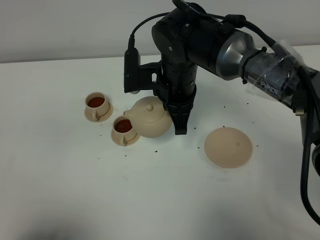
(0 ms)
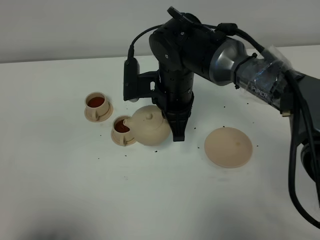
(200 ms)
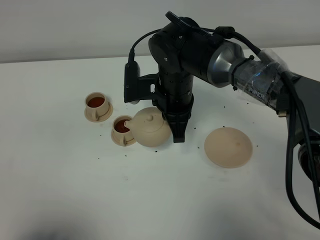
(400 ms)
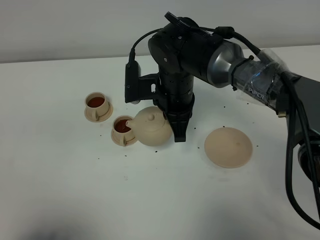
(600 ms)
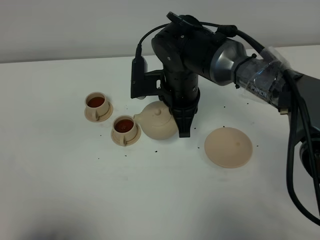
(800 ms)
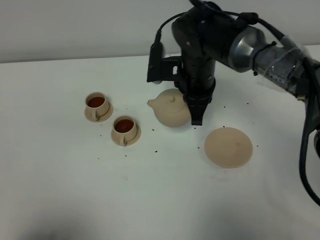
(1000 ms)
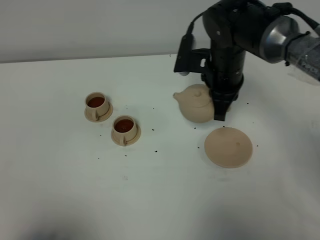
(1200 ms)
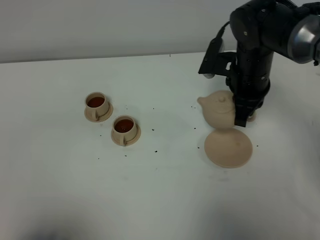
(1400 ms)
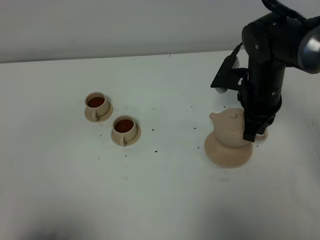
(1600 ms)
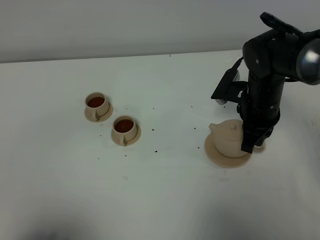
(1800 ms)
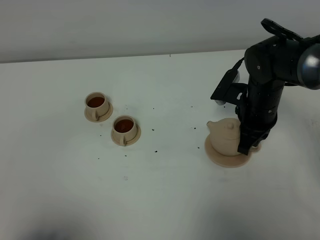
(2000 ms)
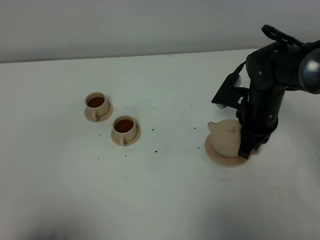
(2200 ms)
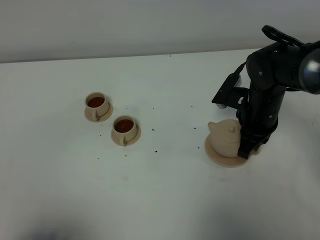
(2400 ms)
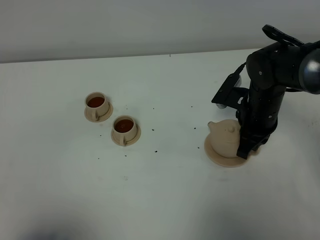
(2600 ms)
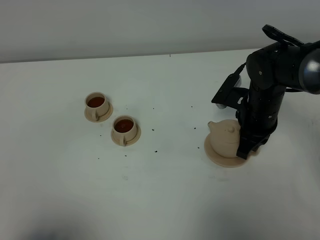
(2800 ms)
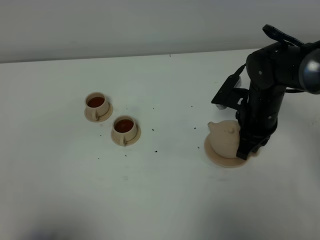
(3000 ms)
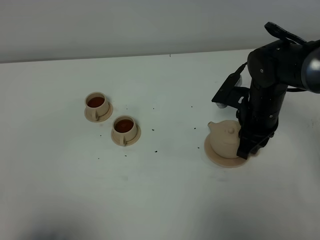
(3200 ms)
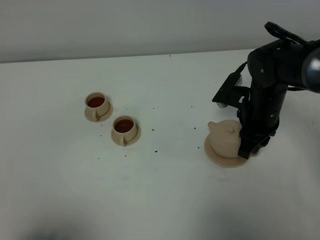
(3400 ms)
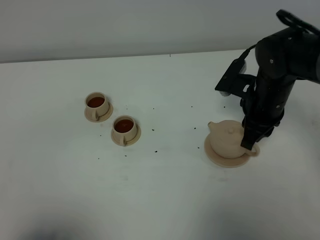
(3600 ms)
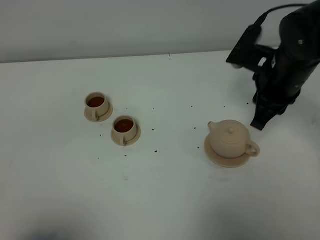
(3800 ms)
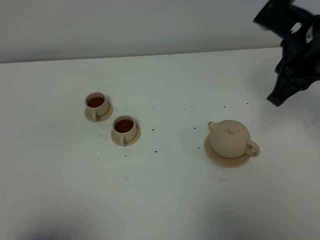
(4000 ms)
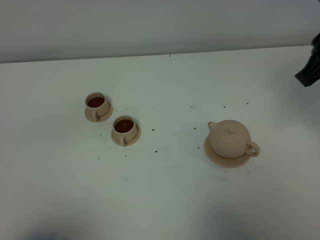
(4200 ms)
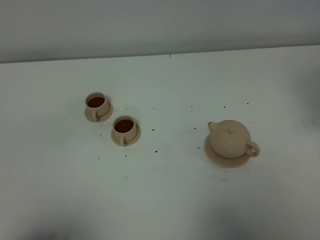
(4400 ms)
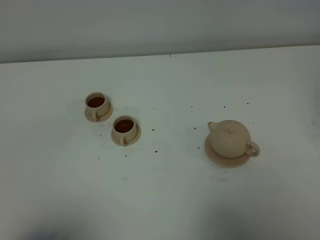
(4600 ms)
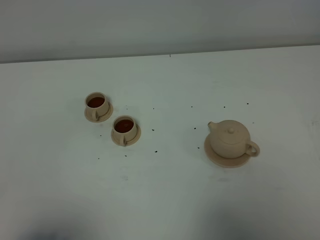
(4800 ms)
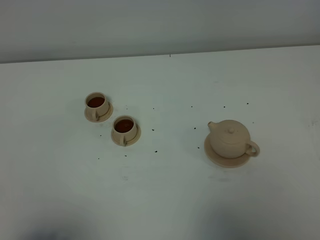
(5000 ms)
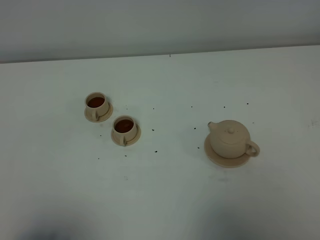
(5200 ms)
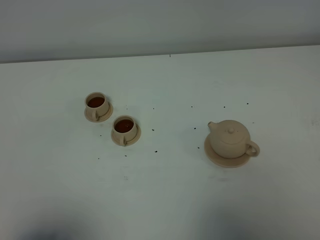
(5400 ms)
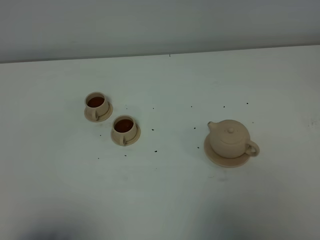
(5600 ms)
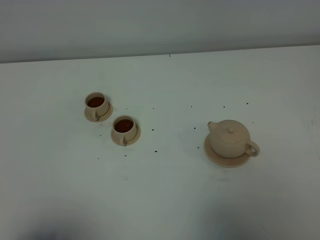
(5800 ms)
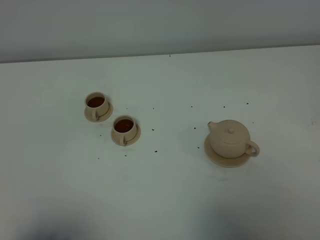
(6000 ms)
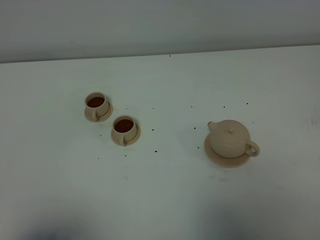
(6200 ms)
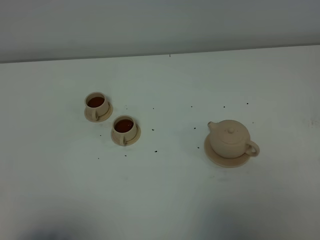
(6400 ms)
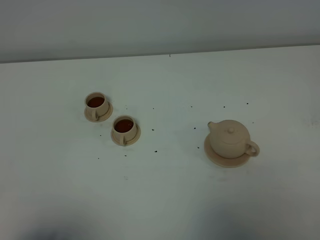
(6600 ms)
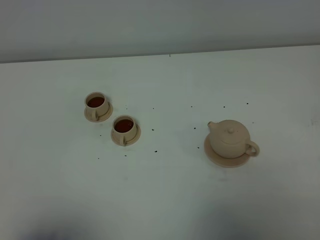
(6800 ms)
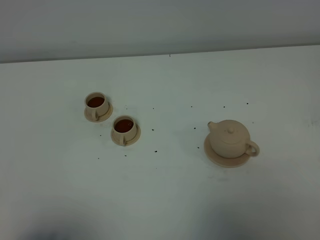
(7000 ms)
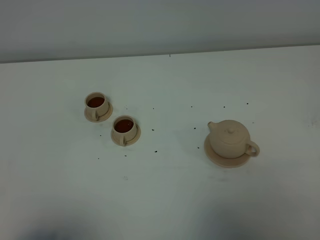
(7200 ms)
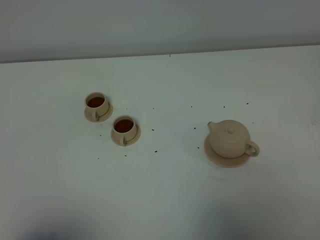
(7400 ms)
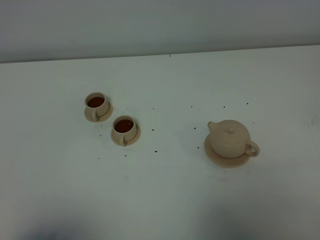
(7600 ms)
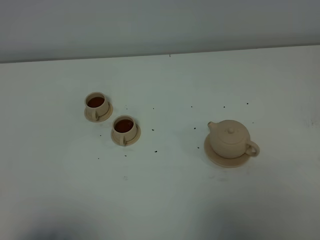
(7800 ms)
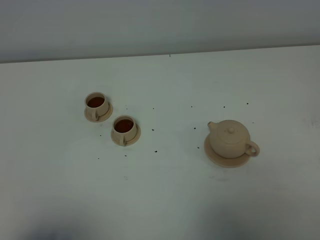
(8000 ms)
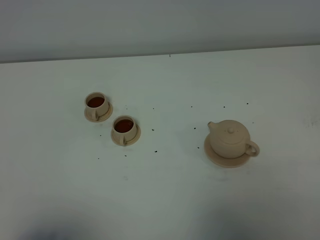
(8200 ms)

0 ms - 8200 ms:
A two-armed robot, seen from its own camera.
Task of the whole recording: grasp the brown teapot and pour the tea into the two brown teacups one by one, put the brown teapot back in its original place.
0 ms - 1600 ms: The right gripper is displaced to the right by roughly 15 cm.
1600 ms - 3200 ms: The right gripper opens.
3200 ms - 5000 ms: The right gripper shifts some 40 cm backward, upward and to the right.
6600 ms - 8200 ms: The two grippers keep their place.

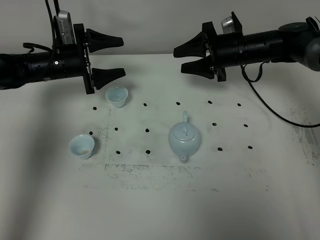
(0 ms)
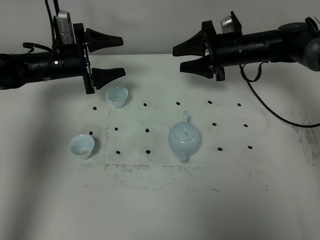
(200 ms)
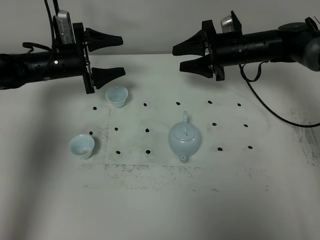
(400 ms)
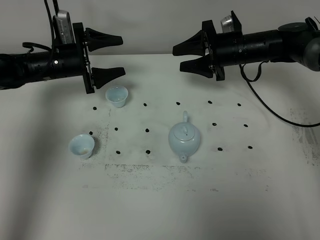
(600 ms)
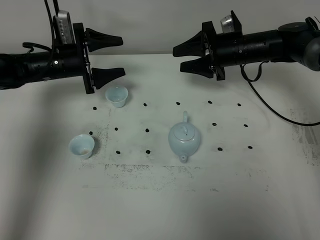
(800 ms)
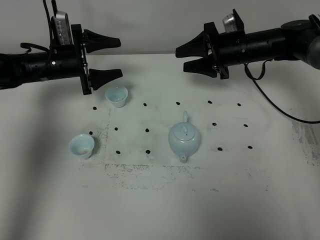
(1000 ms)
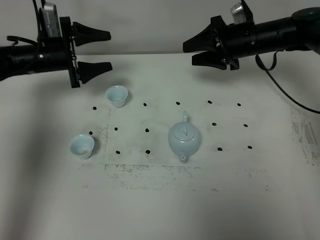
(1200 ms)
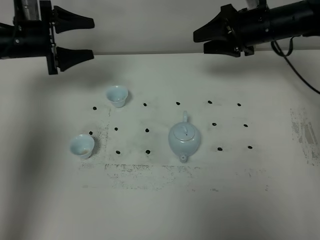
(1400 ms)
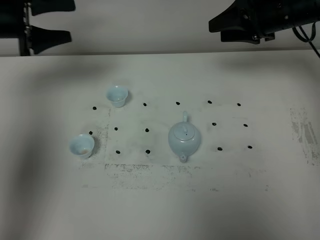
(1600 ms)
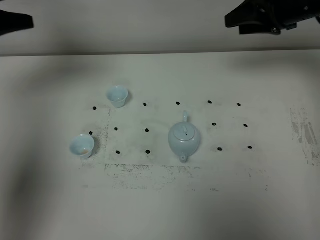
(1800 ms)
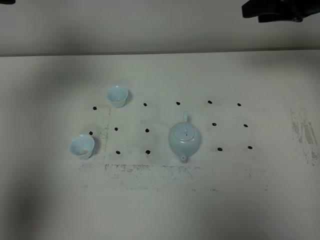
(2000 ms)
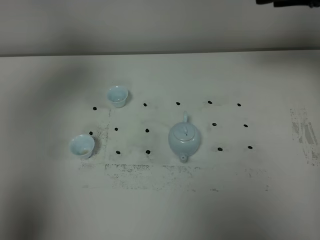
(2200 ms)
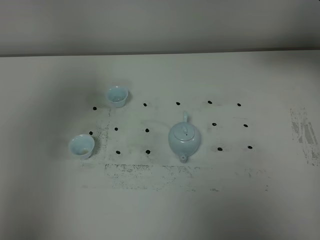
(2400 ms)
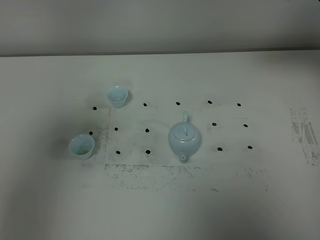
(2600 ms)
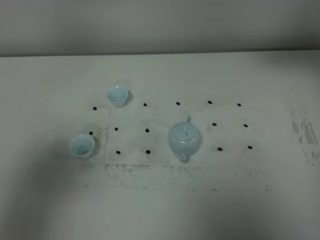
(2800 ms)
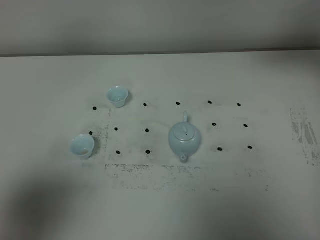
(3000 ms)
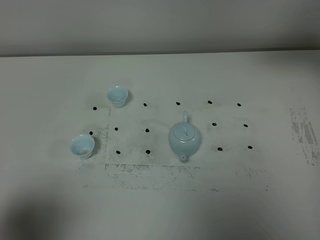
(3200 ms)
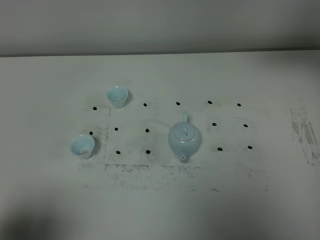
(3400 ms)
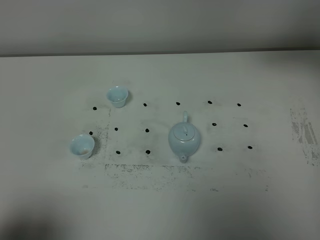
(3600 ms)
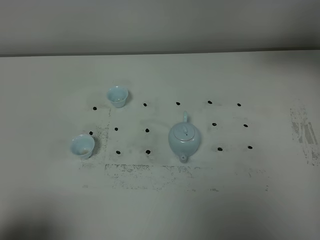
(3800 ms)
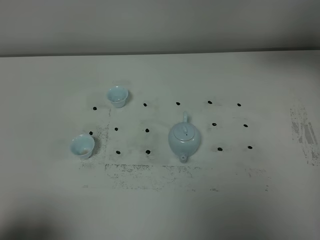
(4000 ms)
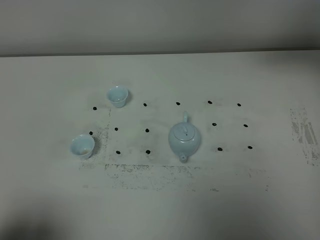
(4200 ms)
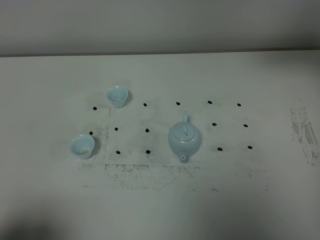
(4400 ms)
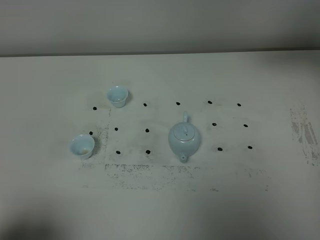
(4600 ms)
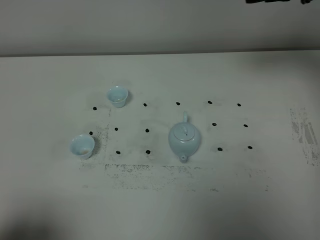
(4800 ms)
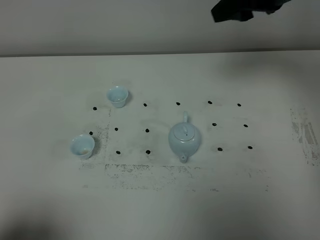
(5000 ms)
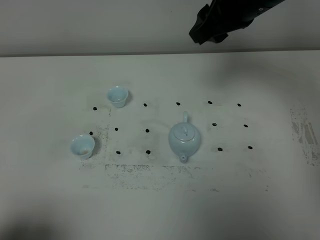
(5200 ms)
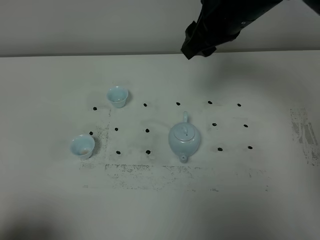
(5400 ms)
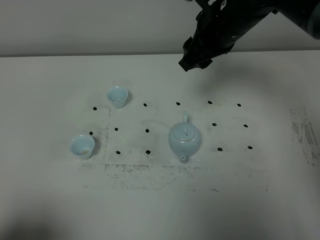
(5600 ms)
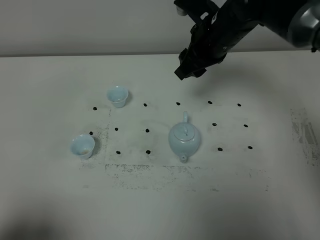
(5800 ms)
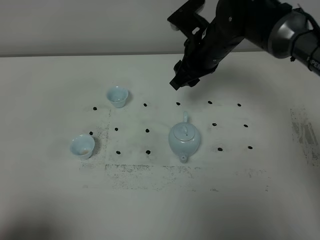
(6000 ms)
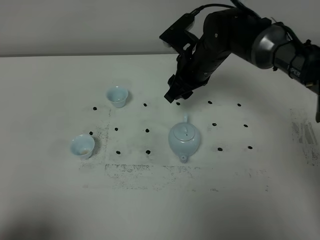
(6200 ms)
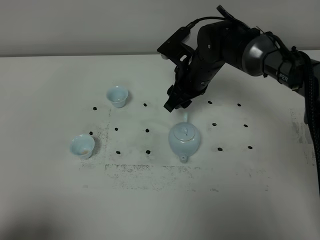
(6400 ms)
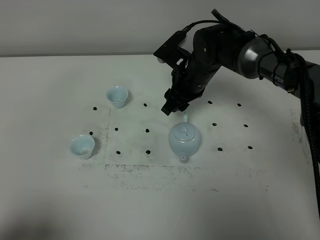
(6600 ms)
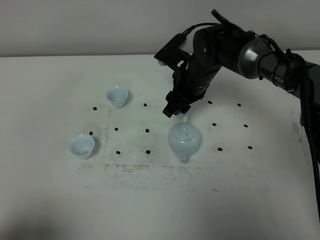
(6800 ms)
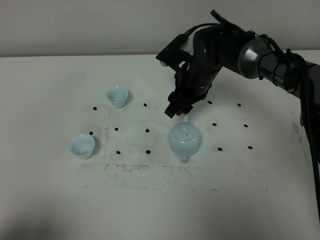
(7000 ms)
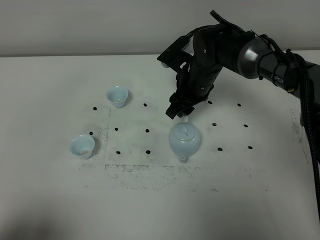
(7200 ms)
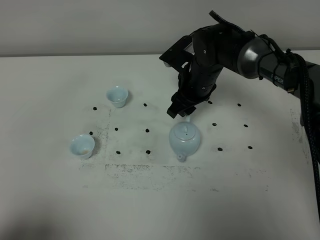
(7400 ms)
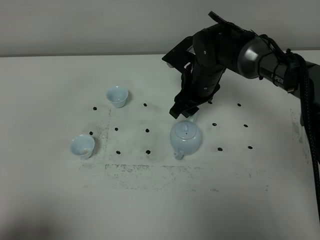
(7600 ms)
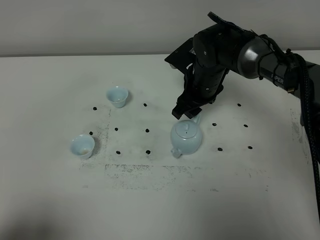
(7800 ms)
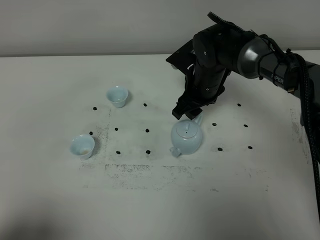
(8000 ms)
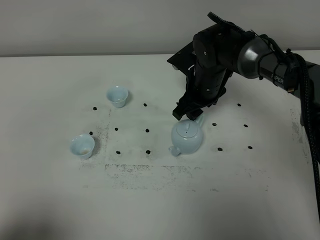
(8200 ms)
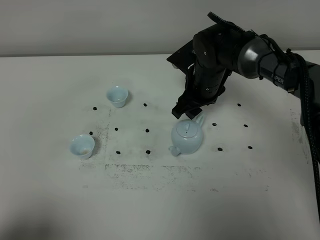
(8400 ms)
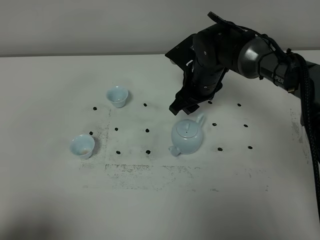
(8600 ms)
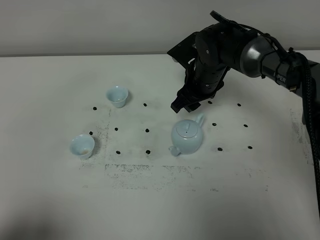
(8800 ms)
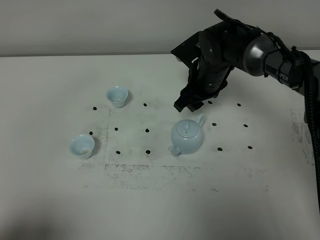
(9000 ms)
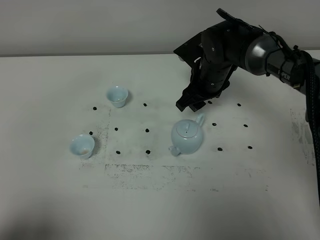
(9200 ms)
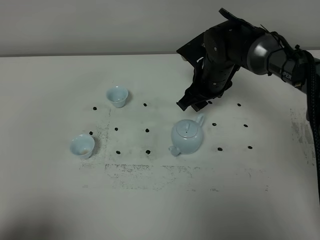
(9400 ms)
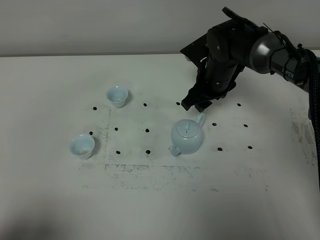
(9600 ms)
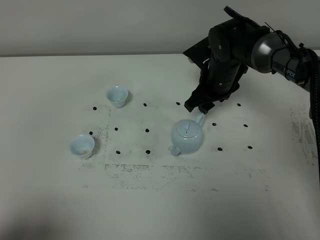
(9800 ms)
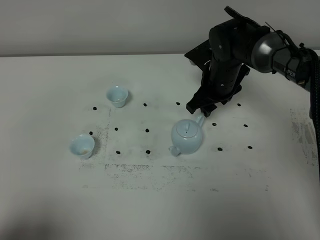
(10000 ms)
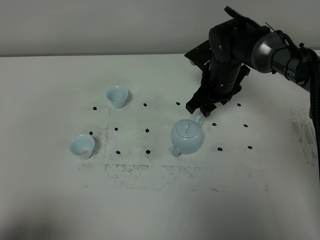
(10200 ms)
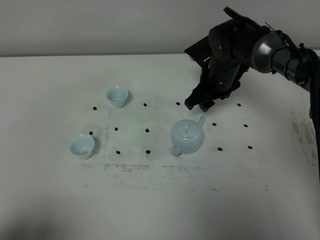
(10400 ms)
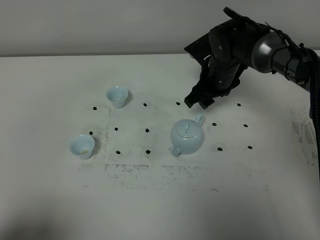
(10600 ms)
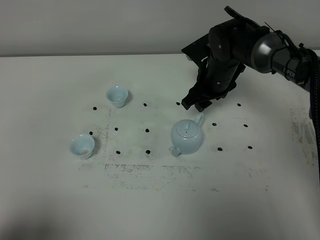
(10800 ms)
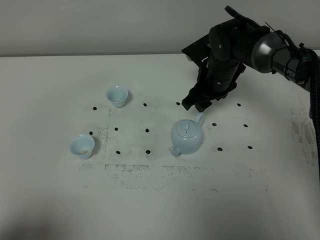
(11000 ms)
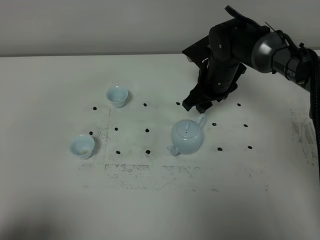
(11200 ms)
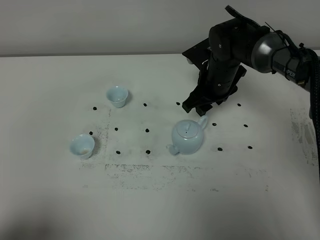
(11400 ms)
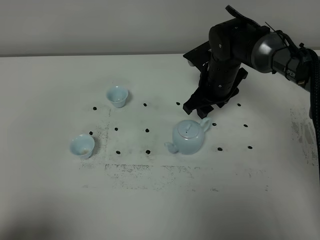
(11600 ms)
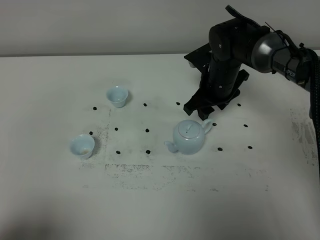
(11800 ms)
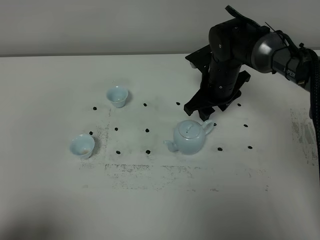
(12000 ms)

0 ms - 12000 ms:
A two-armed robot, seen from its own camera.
Task of the whole recording: grasp the blue porcelain teapot and pour the tea into the two blue porcelain teacups one by one, put the blue porcelain teapot back in its original place.
0 ms - 1600 ms: The left gripper travels upward and to the left by about 20 cm; the right gripper travels upward and to the right by roughly 10 cm.
1600 ms - 3000 ms: The right gripper heads upward and backward, covering roughly 15 cm. Meanwhile the left gripper is displaced backward by approximately 40 cm.
3000 ms - 4400 ms: The left gripper travels downward by approximately 10 cm.
4400 ms - 6000 ms: The right gripper travels to the left and downward by roughly 25 cm.
6000 ms - 7600 ms: The right gripper heads downward, covering approximately 5 cm.
7600 ms - 12000 ms: There are only small adjustments of the grippers.

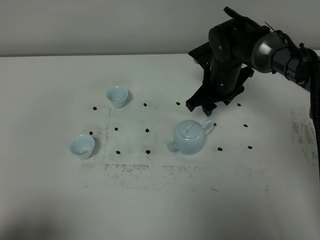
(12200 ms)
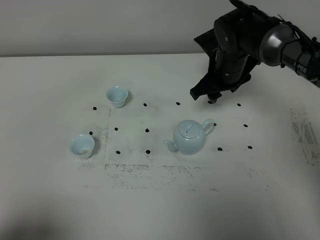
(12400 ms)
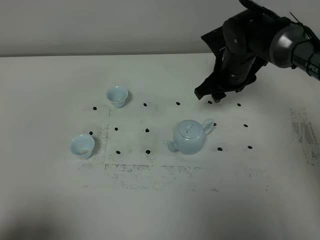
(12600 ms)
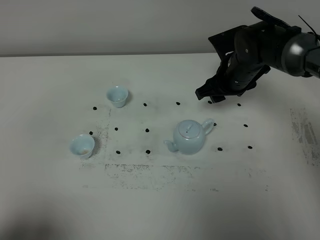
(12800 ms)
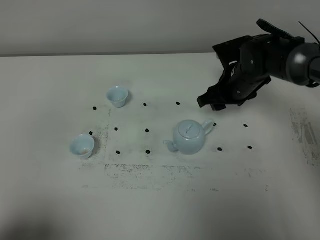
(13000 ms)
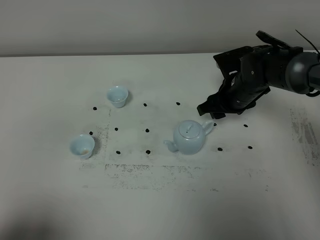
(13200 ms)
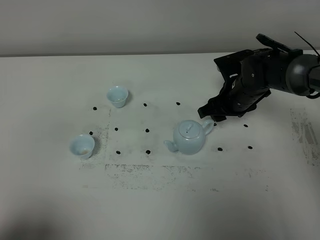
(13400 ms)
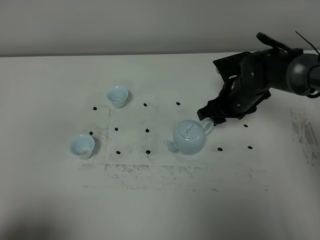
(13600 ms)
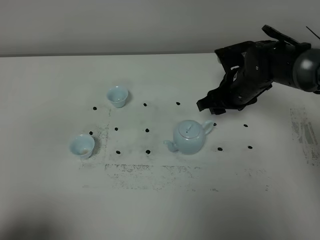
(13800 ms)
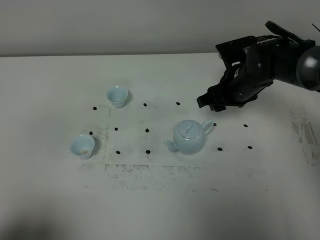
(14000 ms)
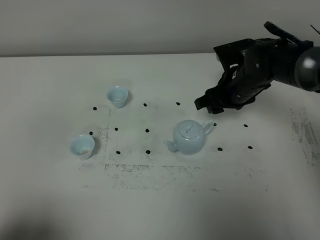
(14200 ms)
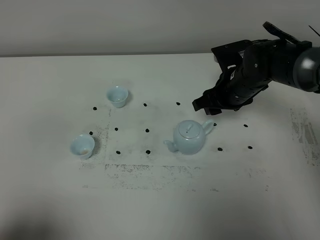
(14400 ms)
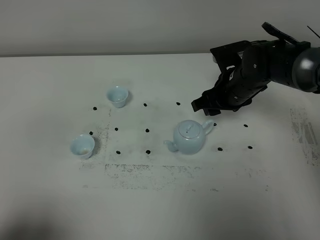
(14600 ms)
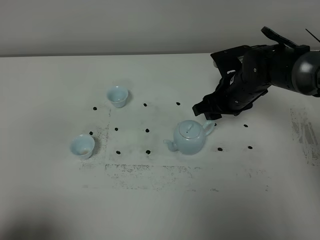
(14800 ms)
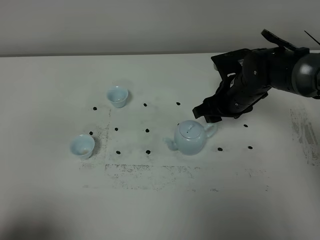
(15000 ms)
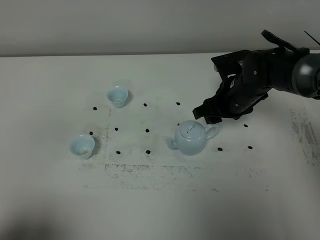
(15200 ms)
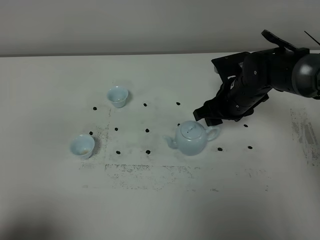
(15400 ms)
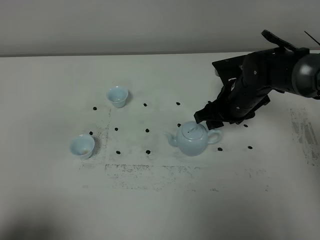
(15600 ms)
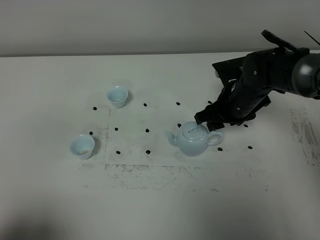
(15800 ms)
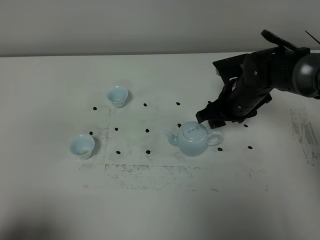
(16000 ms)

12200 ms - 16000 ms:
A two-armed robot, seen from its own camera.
Task of the whole recording: grasp the blue porcelain teapot and pour the tea into the two blue porcelain teacups one by one, put the blue porcelain teapot back in its original place.
12200 ms - 13400 ms: The right gripper moves some 5 cm.
13400 ms - 16000 ms: The grippers move only a little.
